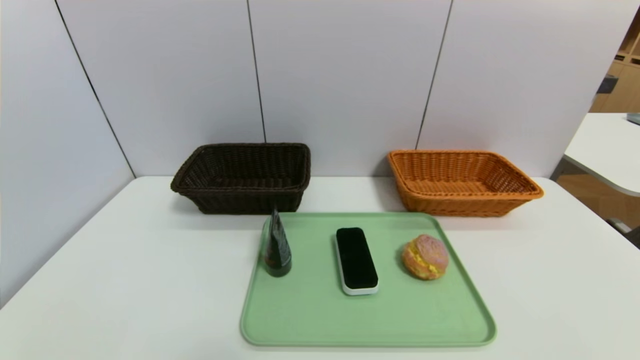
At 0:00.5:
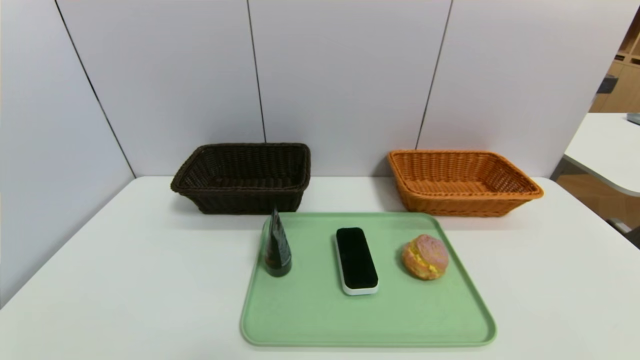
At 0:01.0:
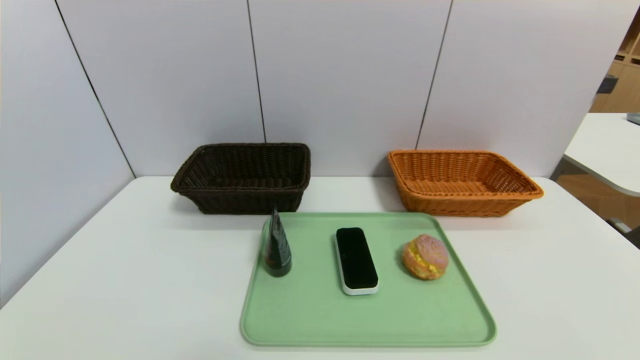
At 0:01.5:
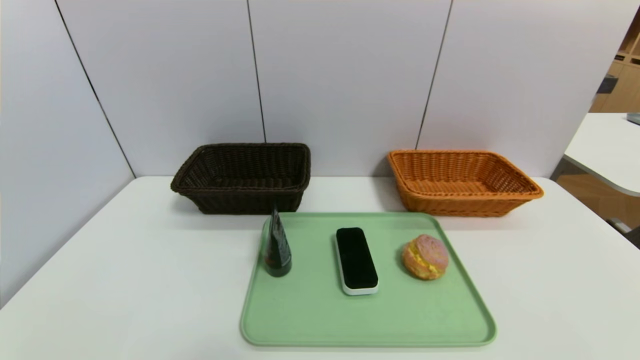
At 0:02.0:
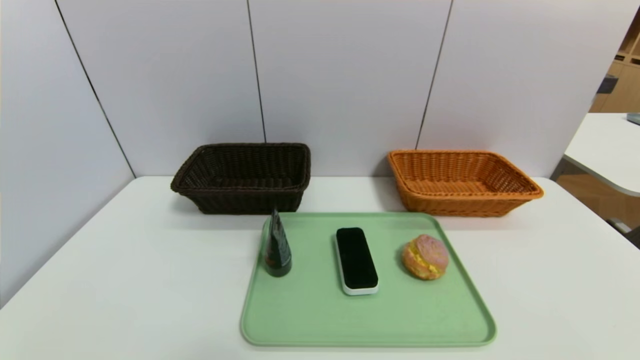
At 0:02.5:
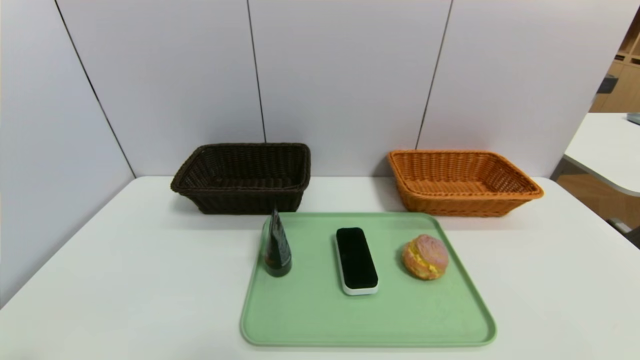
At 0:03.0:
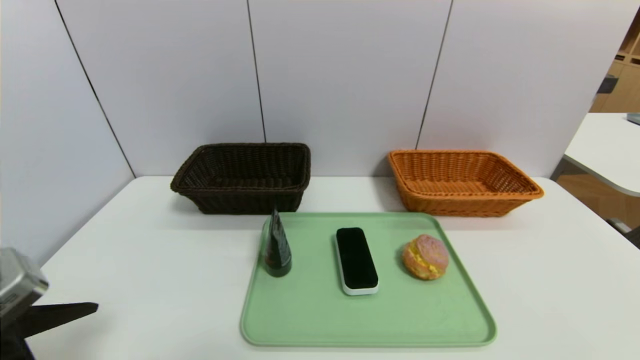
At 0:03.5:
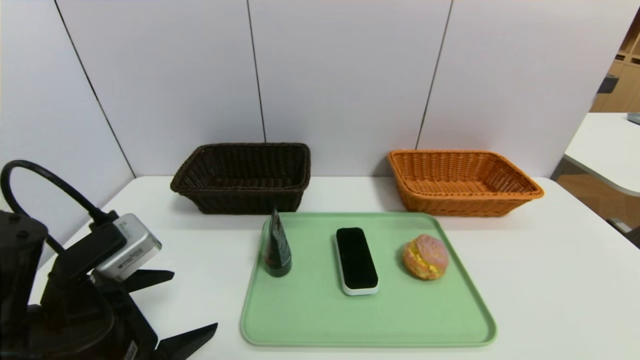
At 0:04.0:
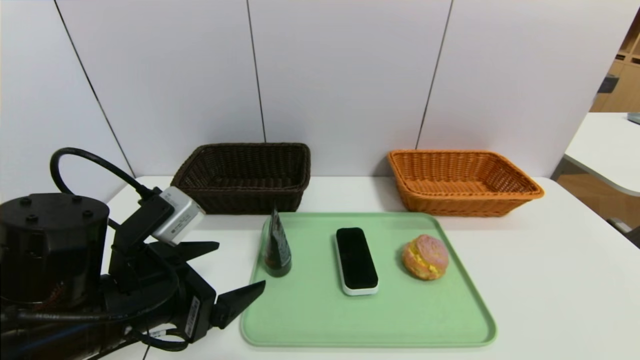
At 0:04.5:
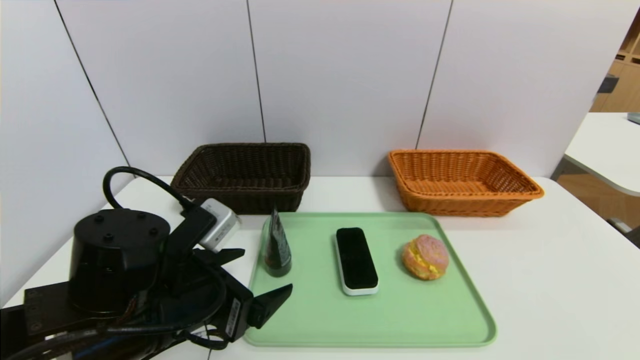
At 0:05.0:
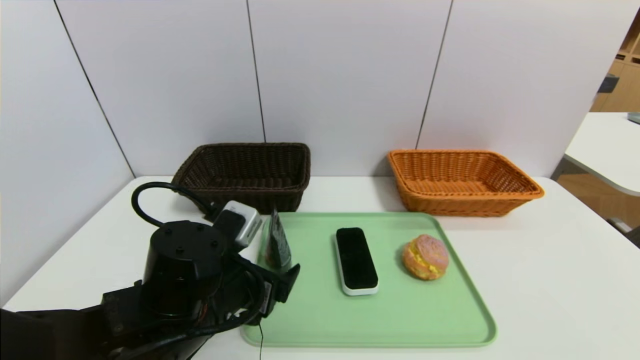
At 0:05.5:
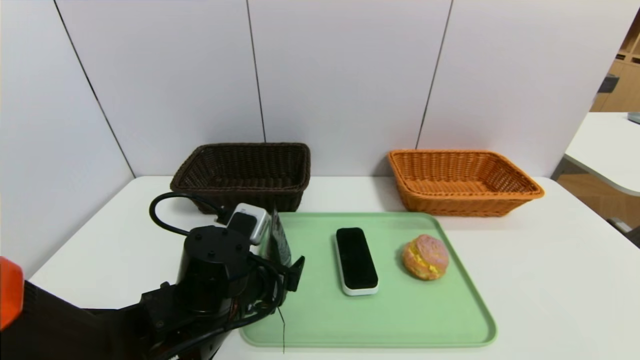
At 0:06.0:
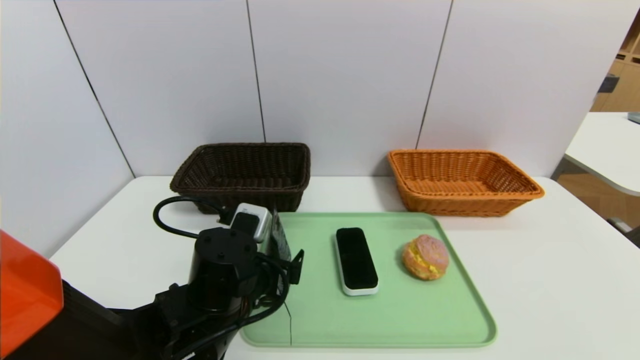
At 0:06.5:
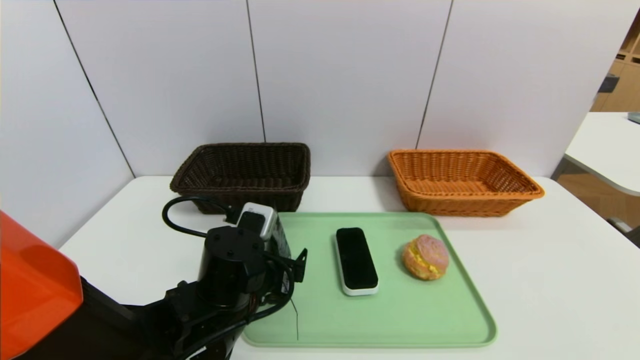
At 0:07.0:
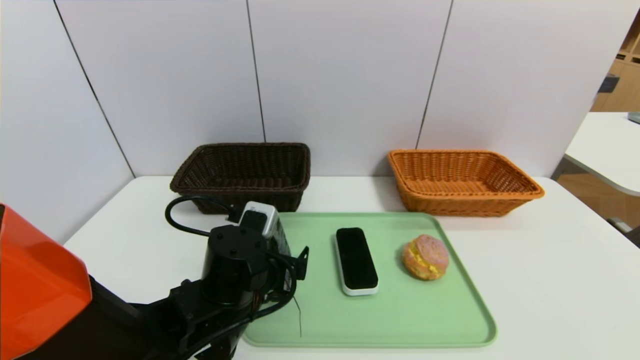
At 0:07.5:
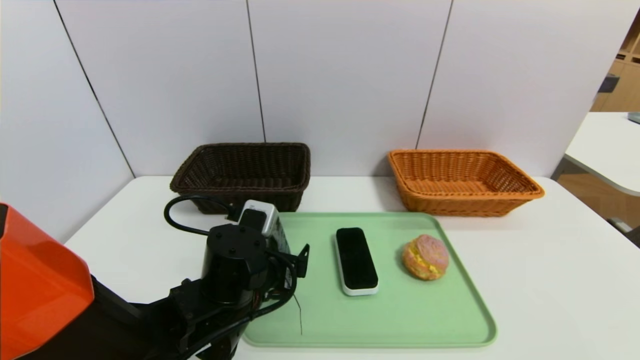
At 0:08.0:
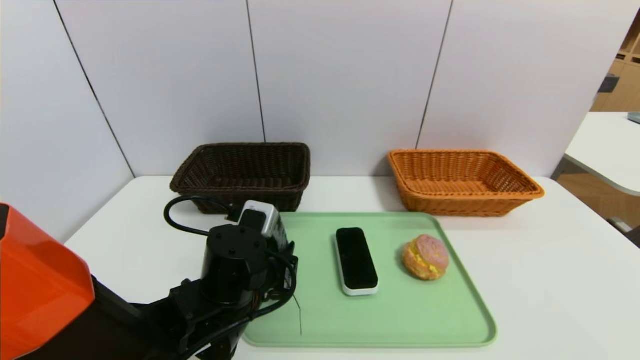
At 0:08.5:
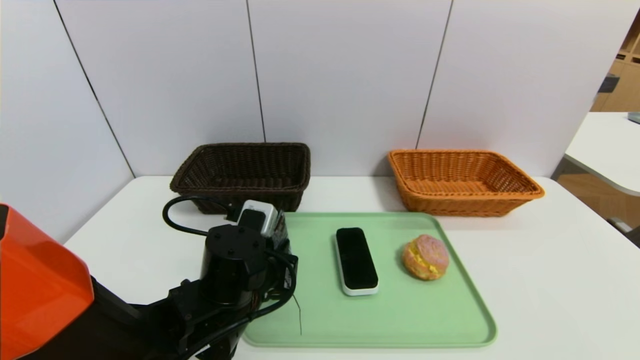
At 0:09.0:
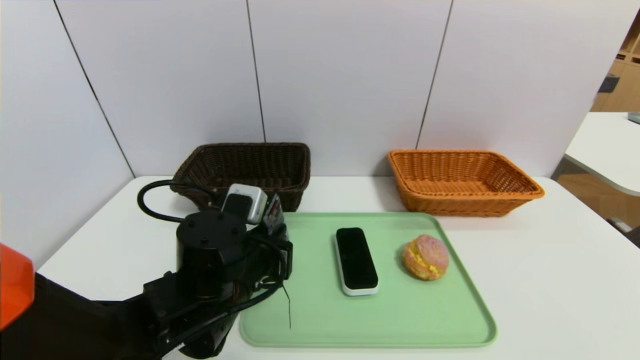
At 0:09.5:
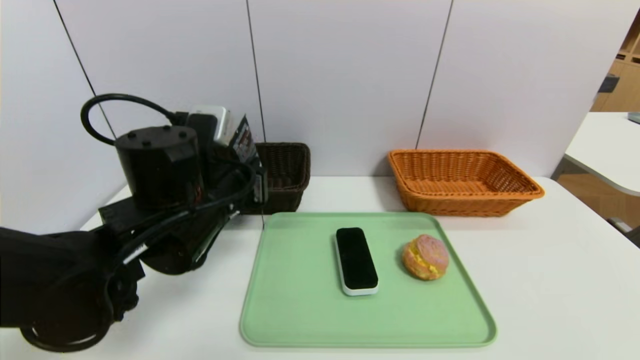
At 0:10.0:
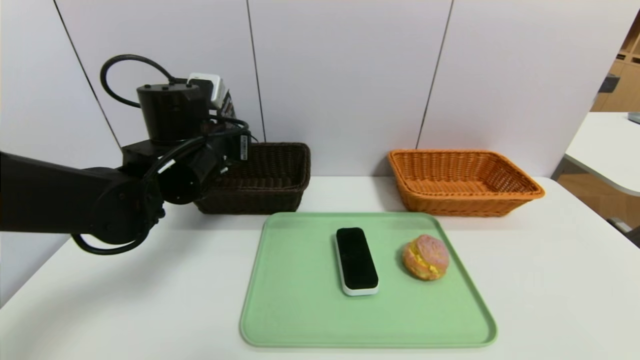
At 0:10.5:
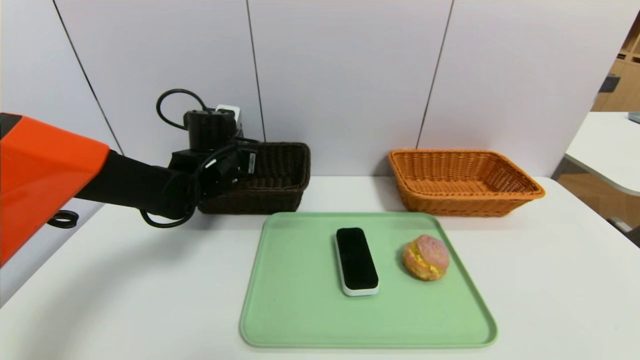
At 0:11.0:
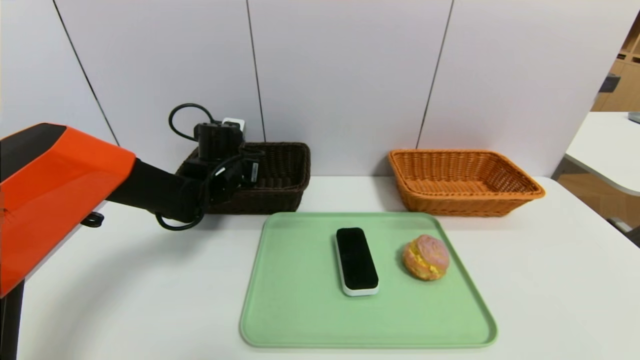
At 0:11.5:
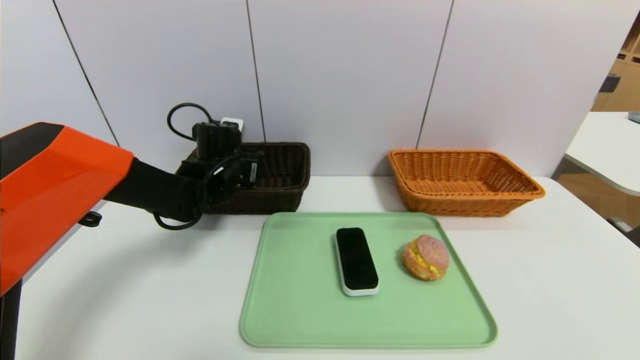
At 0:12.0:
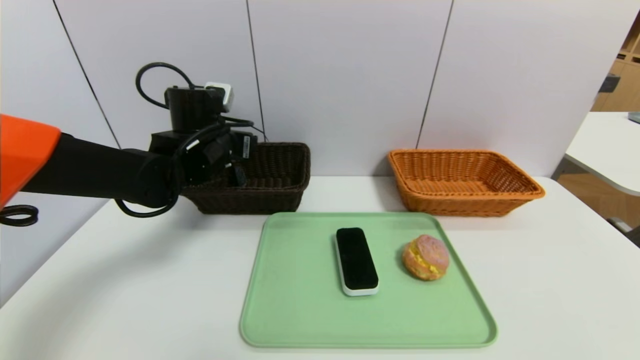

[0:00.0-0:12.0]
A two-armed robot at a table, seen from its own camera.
Task of the whole recording: place the food in the right basket with the right gripper, and place the non food items in the left basket with the left gripper.
Step, 0:00.0 to 0:11.0: Grasp the soft cleanser and put it in the left basket.
0:02.0 to 0:04.0: The left gripper travels forward, to the right and upward by some 25 cm.
0:04.0 to 0:06.0: The left gripper travels to the right, downward and forward by roughly 10 cm.
0:06.0 to 0:08.0: The left gripper closes.
0:08.0 to 0:10.0: The left gripper moves upward, forward and to the left, roughly 20 cm.
0:10.0 to 0:12.0: The left gripper heads forward, covering roughly 5 cm, and opens its fingers.

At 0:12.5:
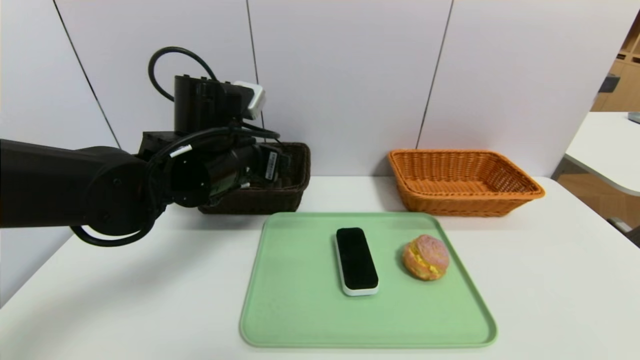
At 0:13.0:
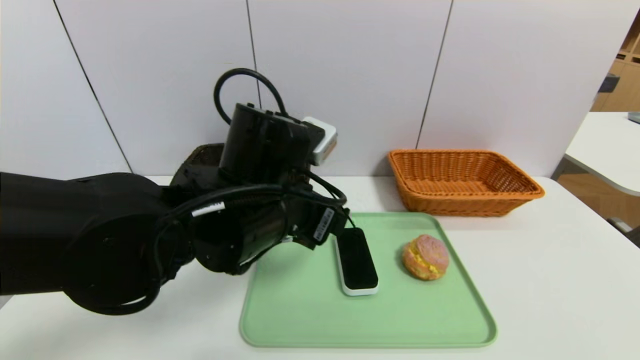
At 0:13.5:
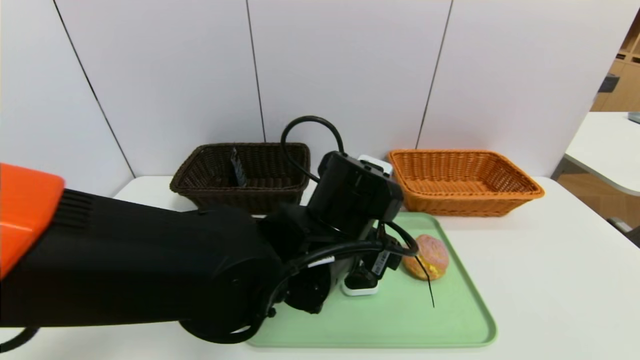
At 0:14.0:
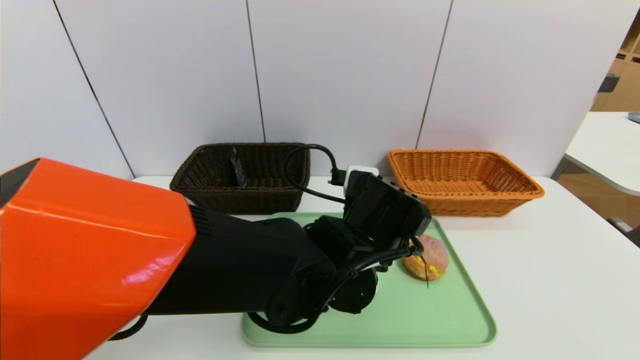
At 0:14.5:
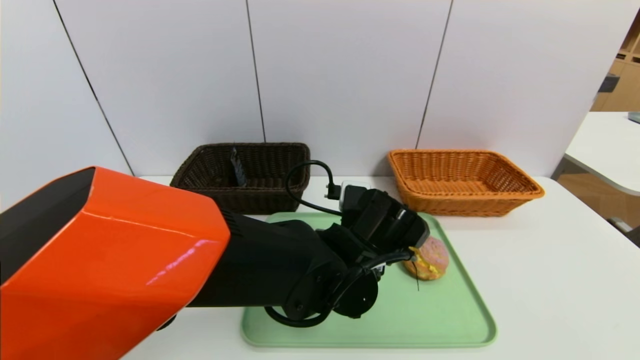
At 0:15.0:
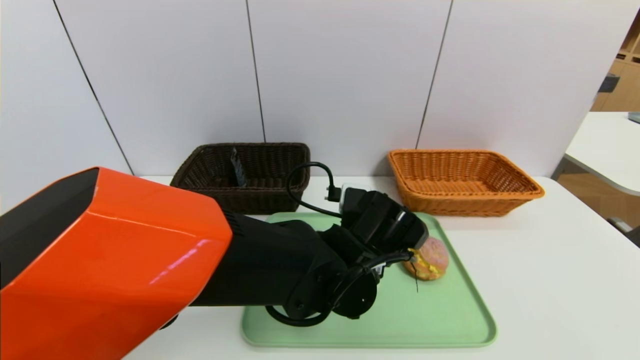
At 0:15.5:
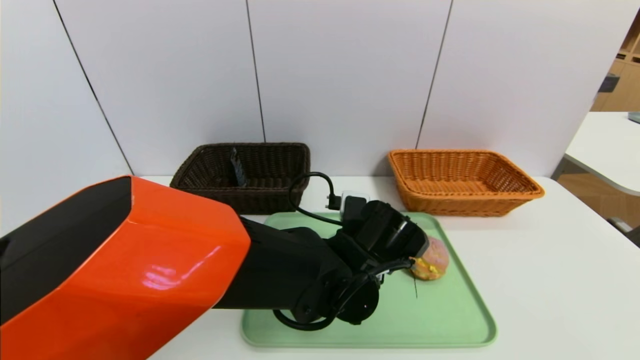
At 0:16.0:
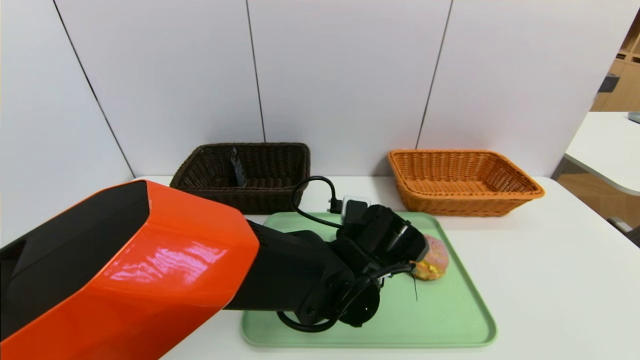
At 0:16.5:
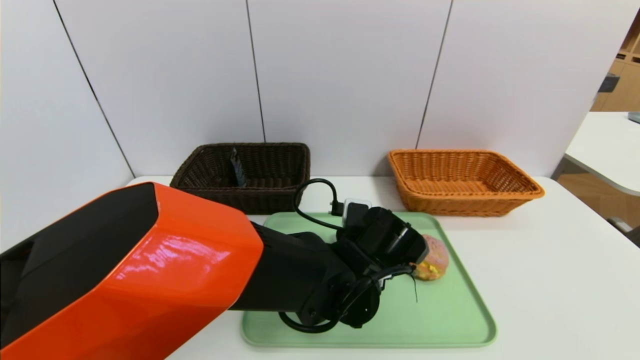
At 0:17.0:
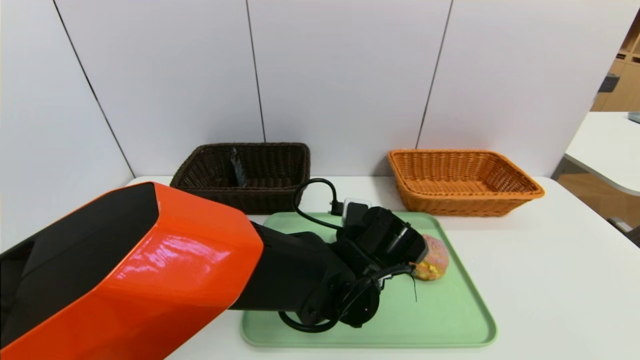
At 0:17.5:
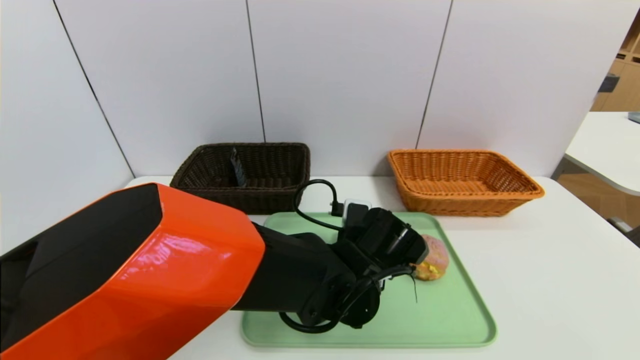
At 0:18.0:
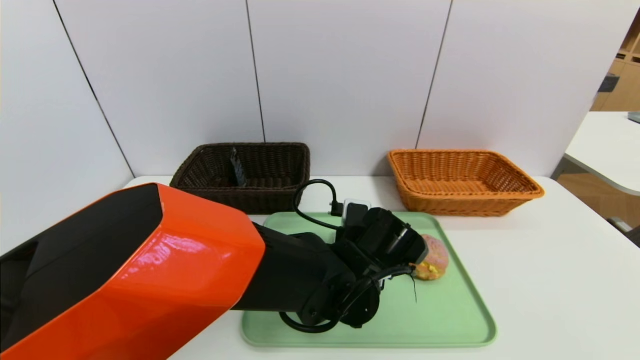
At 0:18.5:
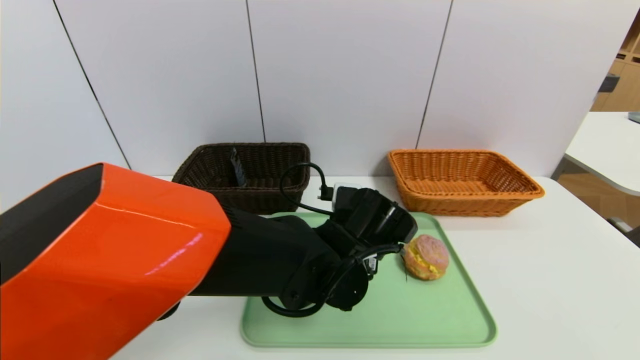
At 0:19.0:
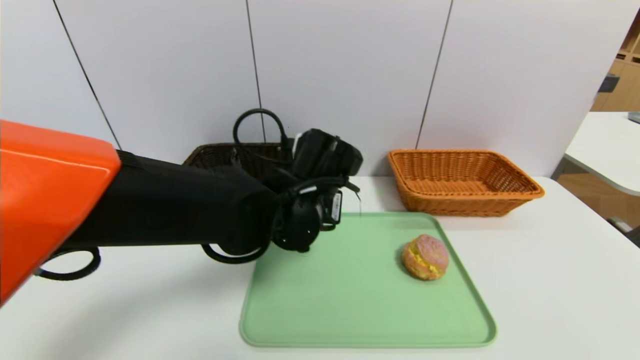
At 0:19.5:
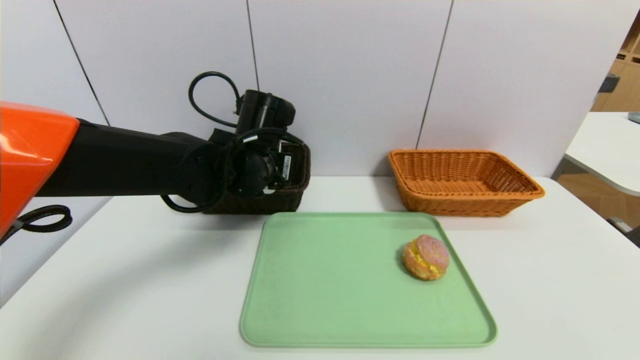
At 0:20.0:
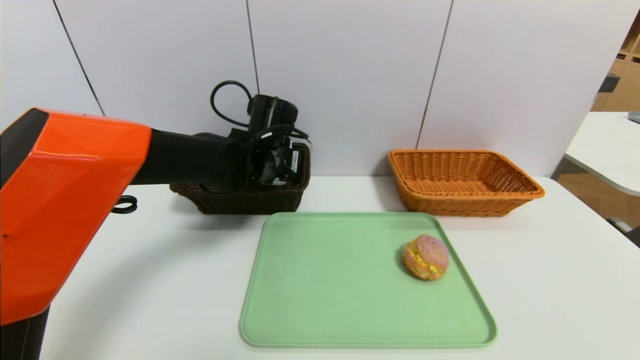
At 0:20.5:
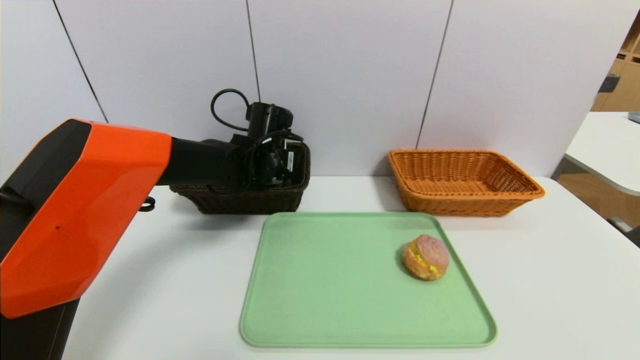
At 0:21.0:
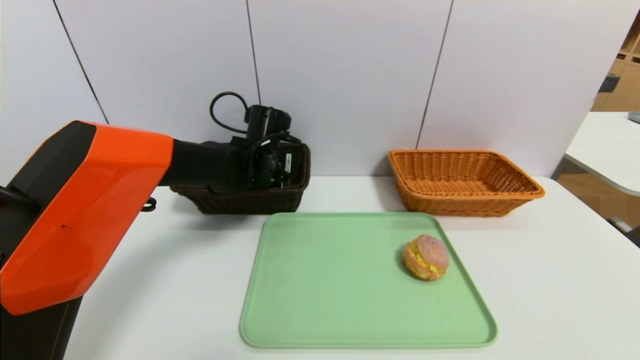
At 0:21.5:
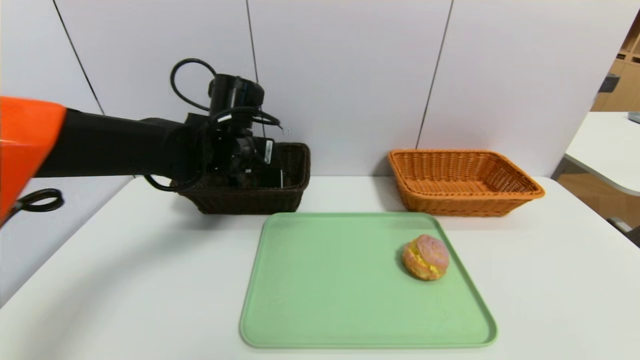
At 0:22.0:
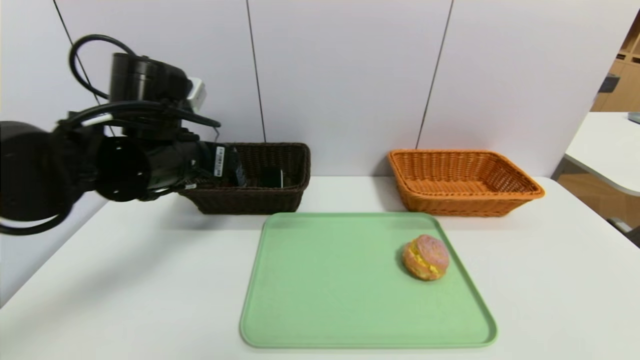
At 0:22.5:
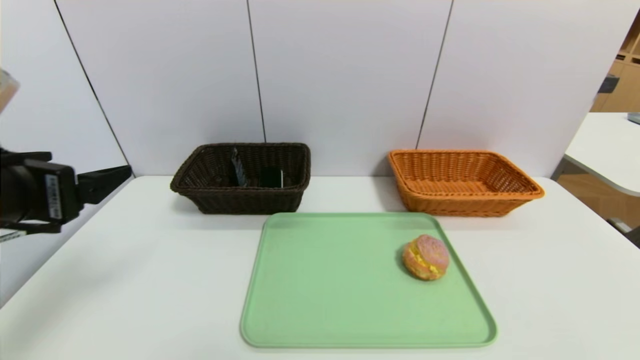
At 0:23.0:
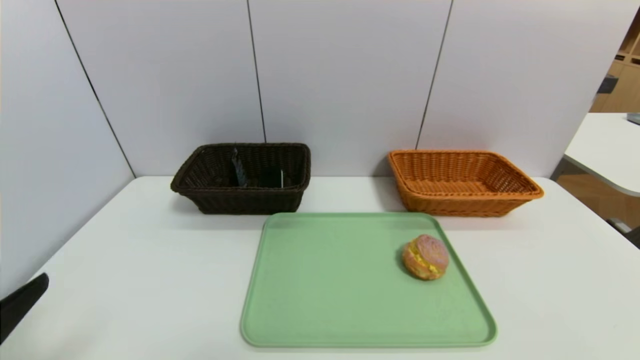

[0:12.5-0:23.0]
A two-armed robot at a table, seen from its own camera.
Task of the whole recording: place the food in the right basket with the right gripper, and place the non food items in the left basket with the left gripper.
Step, 0:12.5 to 0:21.0: Grasp the white eraser and put it in the left basket.
0:12.5 to 0:14.5: The left gripper travels to the right and downward by approximately 20 cm.
0:14.5 to 0:16.5: There are only small adjustments of the grippers.
0:16.5 to 0:19.0: The left gripper travels upward and to the left by approximately 10 cm, and closes up.
0:19.0 to 0:21.0: The left gripper heads forward and to the left, covering some 15 cm.
0:21.0 to 0:23.0: The left gripper shifts some 40 cm backward and to the left.
